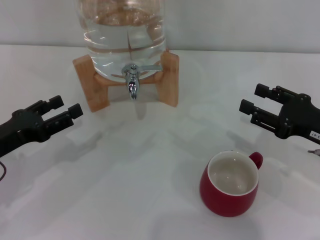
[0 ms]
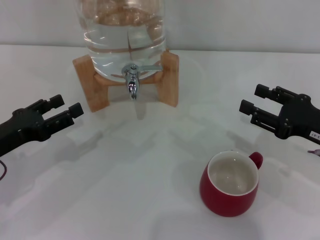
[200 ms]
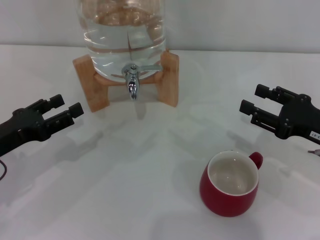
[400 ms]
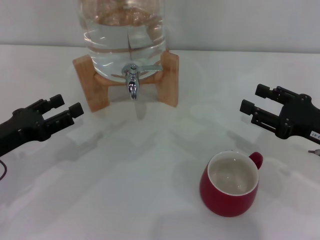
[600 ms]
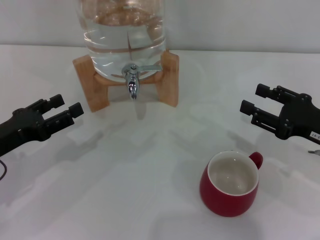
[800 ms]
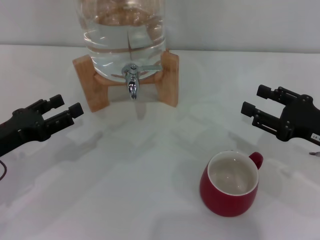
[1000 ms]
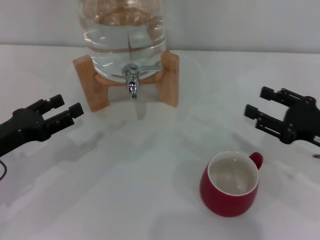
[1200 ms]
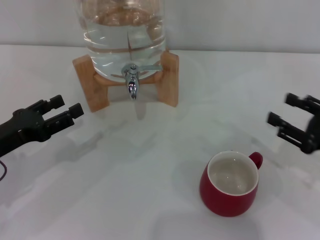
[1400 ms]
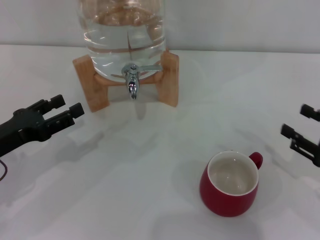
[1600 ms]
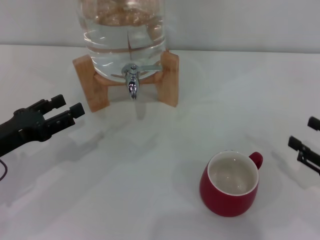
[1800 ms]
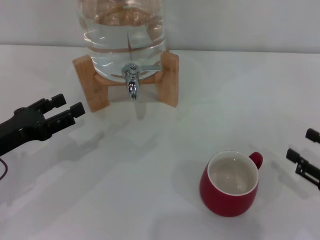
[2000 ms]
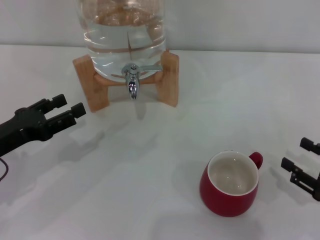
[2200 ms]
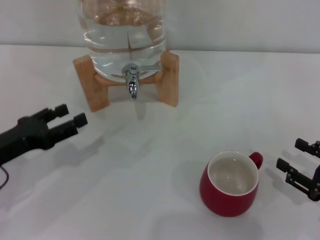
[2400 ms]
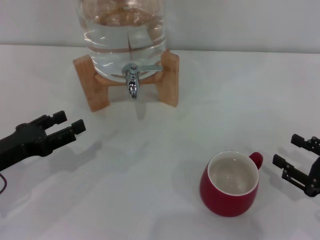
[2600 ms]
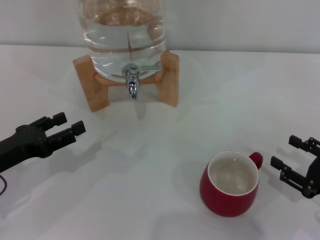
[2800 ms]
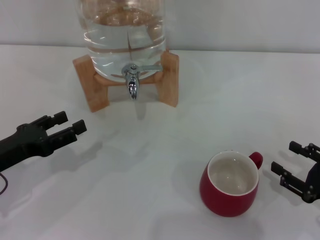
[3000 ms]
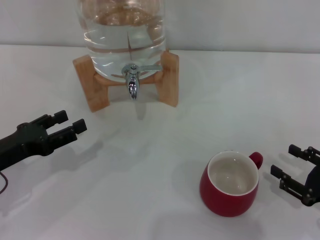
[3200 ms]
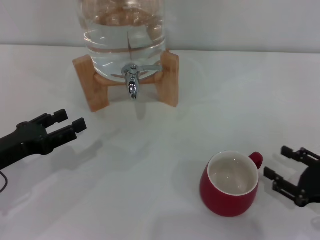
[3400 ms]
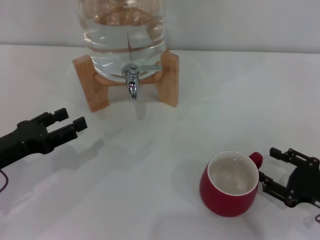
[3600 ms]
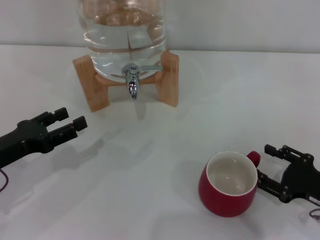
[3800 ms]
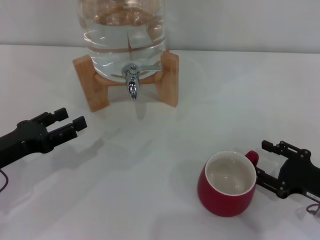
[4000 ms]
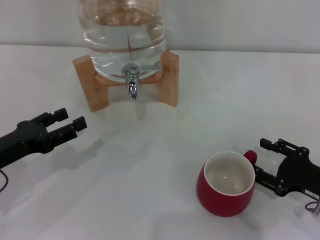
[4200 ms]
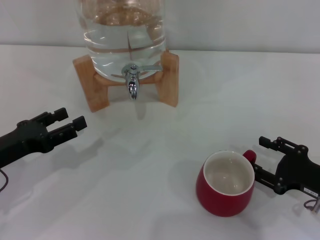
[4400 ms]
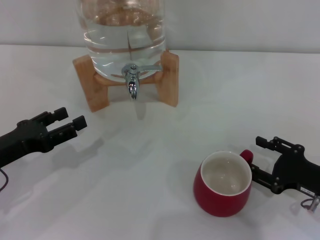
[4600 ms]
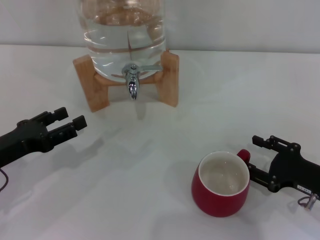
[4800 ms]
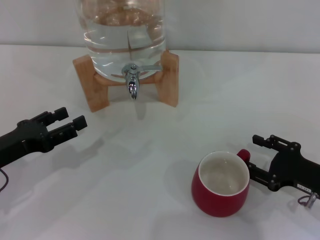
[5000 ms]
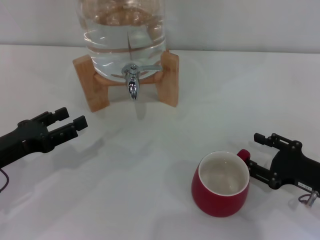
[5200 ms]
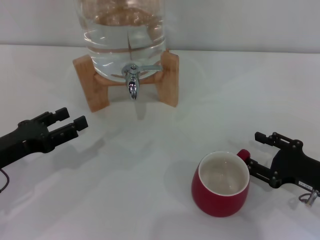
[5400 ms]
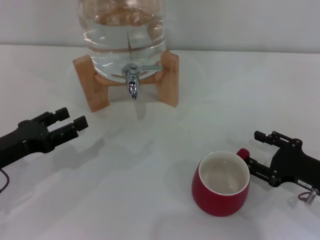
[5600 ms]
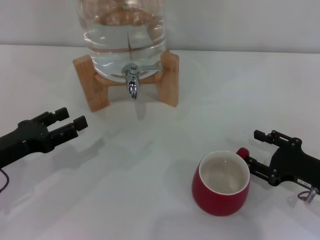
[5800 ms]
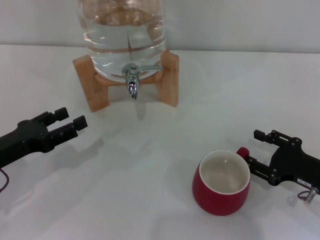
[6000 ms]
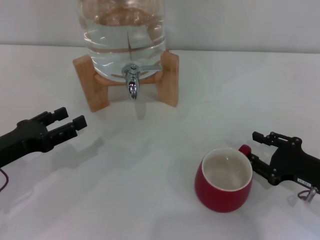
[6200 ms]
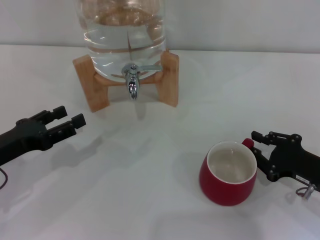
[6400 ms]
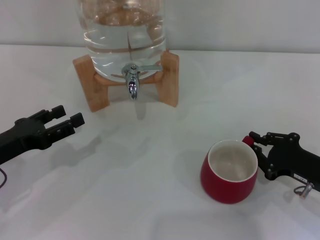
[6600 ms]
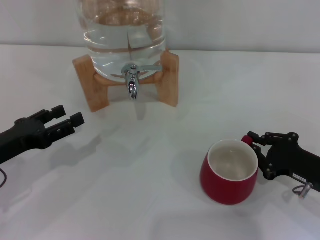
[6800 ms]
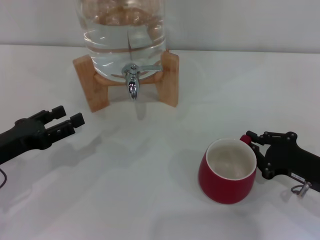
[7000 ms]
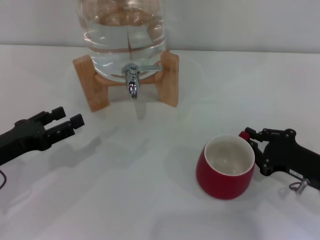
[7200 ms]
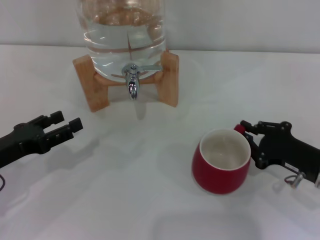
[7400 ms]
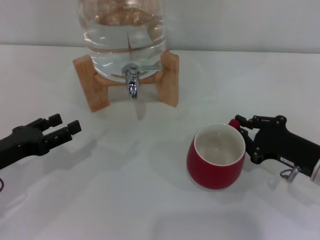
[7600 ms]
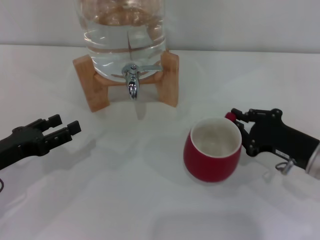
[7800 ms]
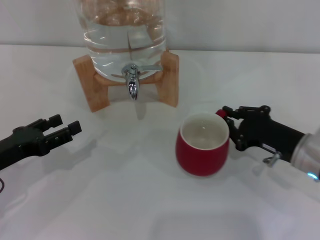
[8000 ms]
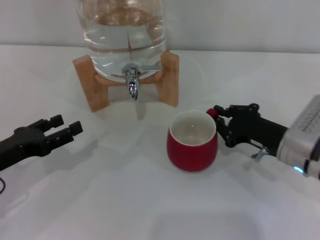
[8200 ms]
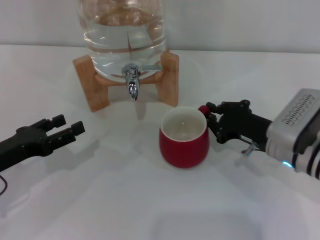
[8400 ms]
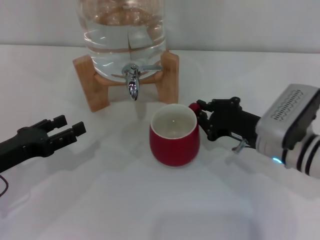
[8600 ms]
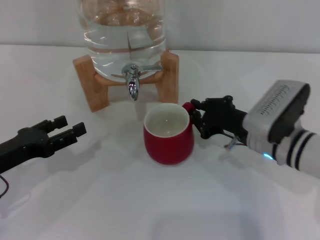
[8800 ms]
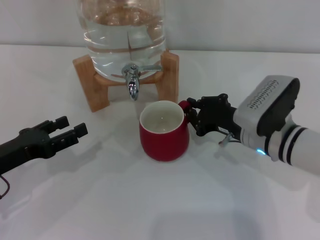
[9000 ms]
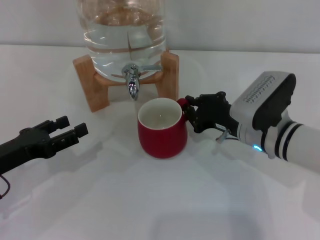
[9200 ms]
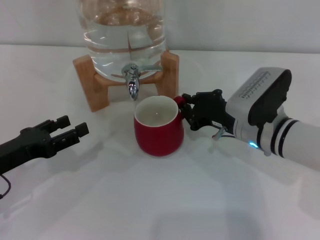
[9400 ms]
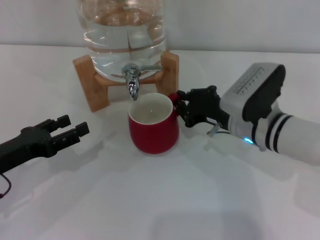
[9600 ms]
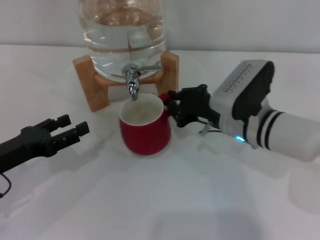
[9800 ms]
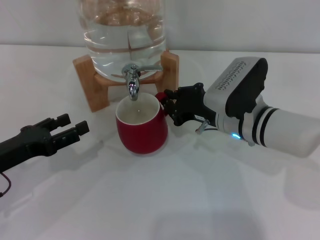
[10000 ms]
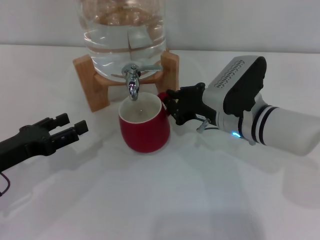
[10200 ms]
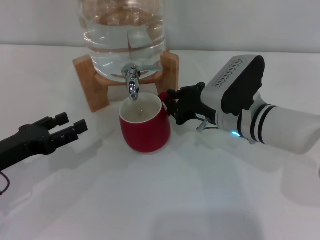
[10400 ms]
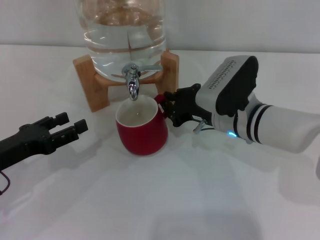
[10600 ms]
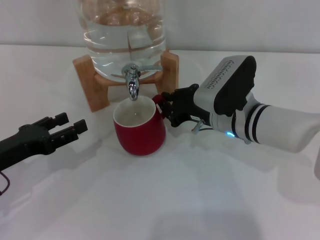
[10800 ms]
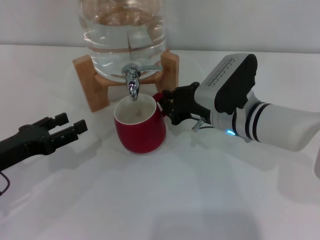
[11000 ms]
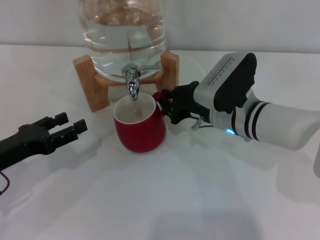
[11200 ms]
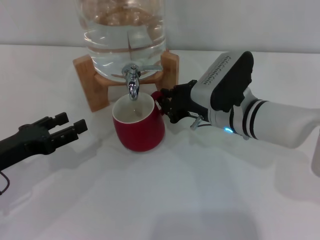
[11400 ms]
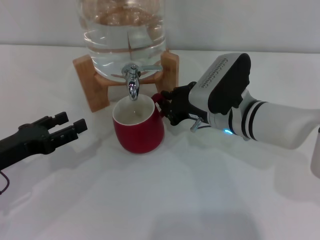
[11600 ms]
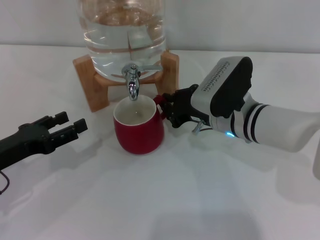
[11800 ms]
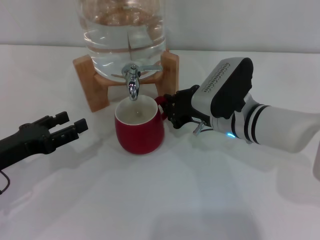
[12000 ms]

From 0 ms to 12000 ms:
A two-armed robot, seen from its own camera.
Task of the whole recording: the right gripper pick up the red cup and place it horizontally under the faucet, the left gripper turn on the faucet to fill the cup, and then turn off the faucet.
From 0 ms to 1600 ms: The right gripper changes place by some 5 cm.
From 1600 ms to 3000 ms: The right gripper moves about 5 cm.
From 3000 ms to 6000 ms: The grippers move only a little.
From 6000 ms to 7600 ms: The right gripper closes its fingers.
From 7600 ms to 9000 ms: The right gripper shifts roughly 10 cm to the left and forward.
From 9000 ms to 10400 ms: The right gripper shifts by about 5 cm.
From 10400 ms to 12000 ms: Both grippers stay about where they are.

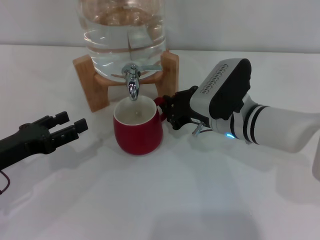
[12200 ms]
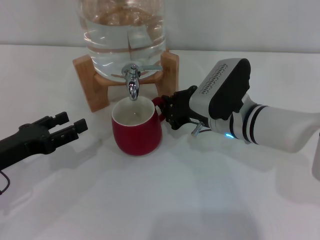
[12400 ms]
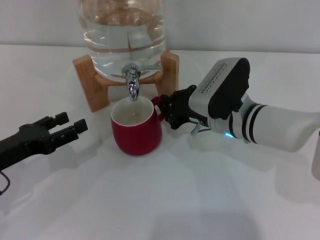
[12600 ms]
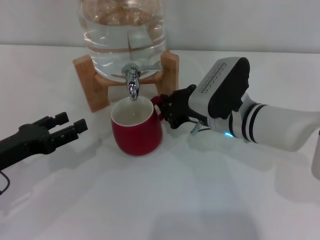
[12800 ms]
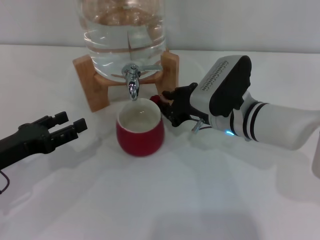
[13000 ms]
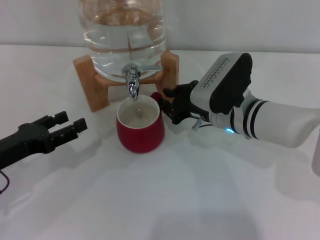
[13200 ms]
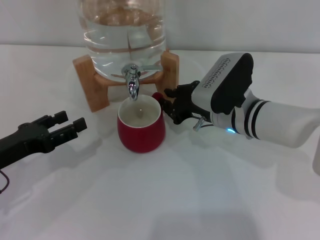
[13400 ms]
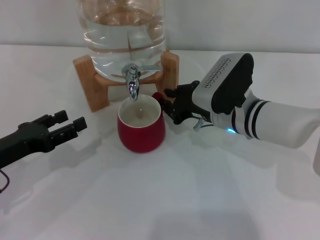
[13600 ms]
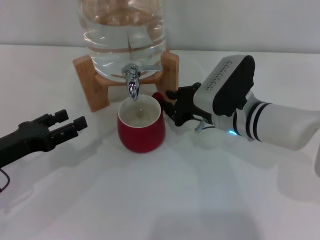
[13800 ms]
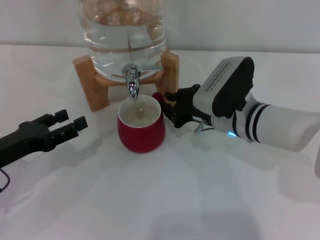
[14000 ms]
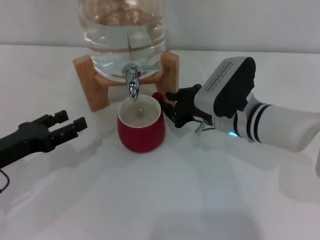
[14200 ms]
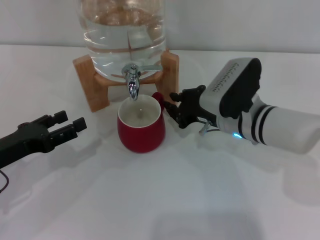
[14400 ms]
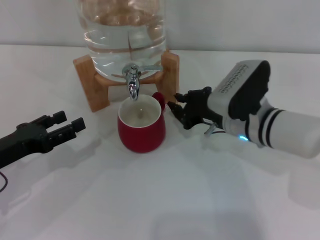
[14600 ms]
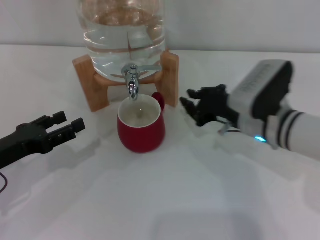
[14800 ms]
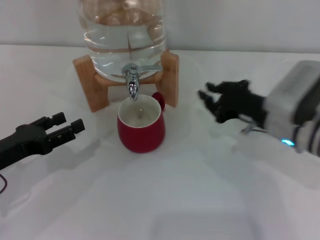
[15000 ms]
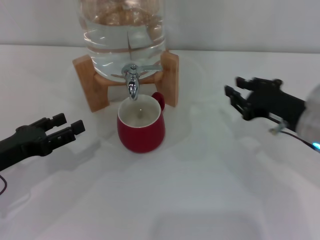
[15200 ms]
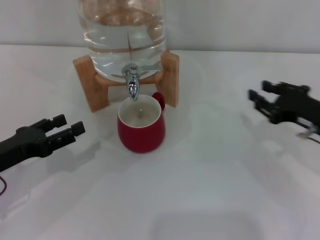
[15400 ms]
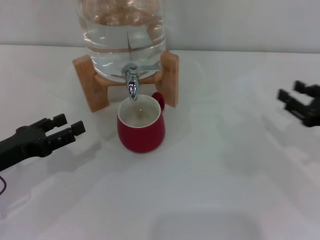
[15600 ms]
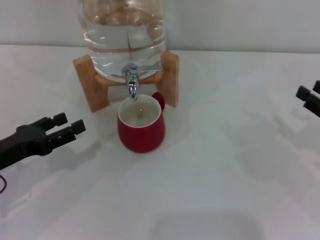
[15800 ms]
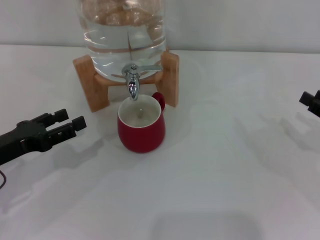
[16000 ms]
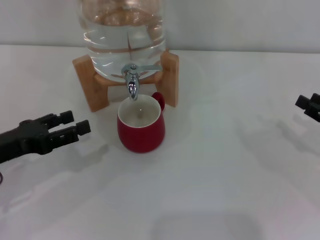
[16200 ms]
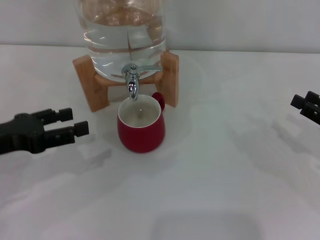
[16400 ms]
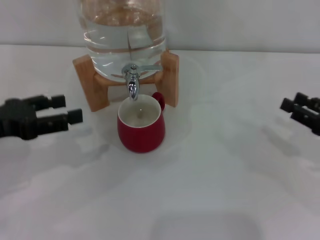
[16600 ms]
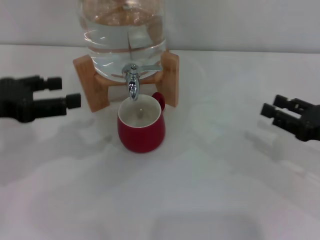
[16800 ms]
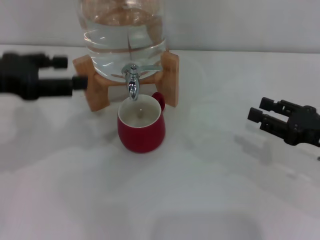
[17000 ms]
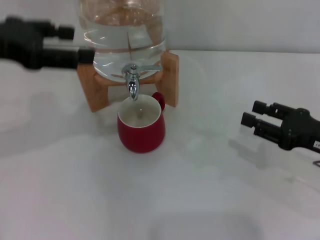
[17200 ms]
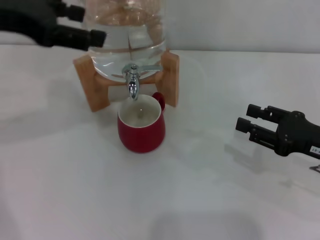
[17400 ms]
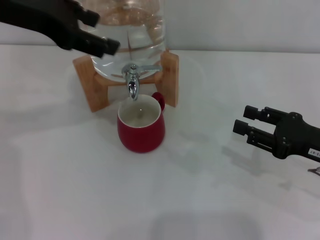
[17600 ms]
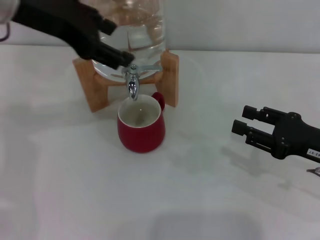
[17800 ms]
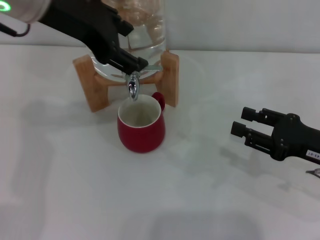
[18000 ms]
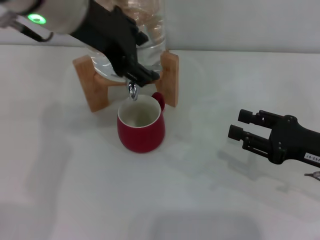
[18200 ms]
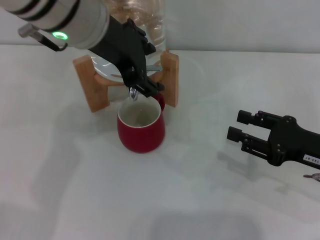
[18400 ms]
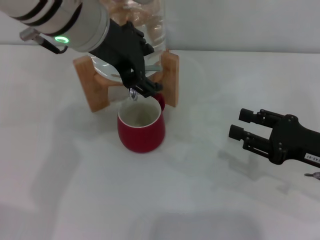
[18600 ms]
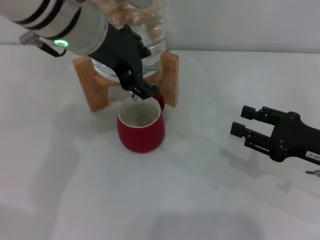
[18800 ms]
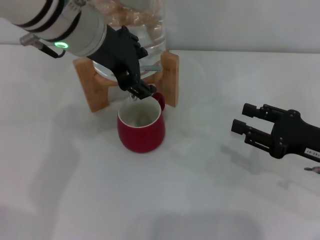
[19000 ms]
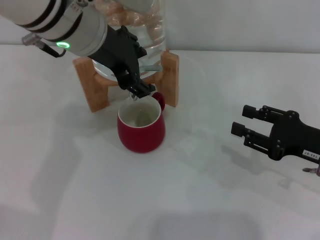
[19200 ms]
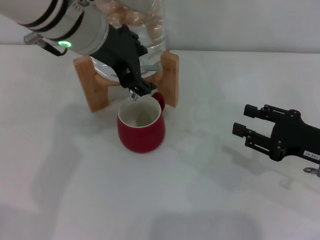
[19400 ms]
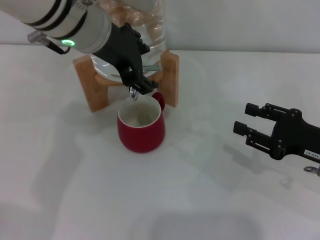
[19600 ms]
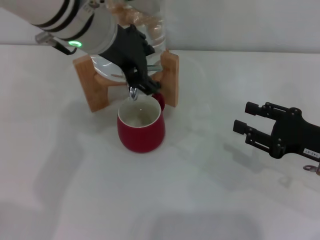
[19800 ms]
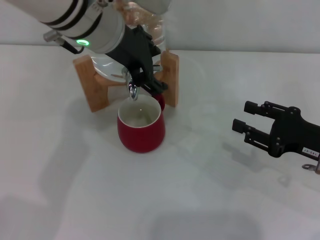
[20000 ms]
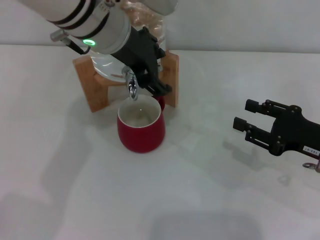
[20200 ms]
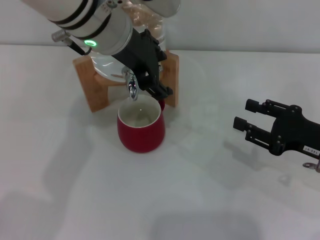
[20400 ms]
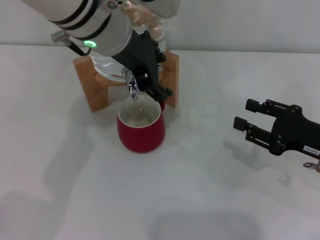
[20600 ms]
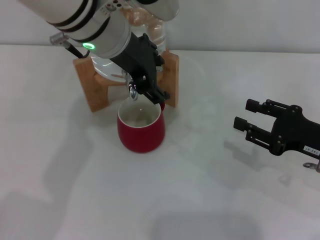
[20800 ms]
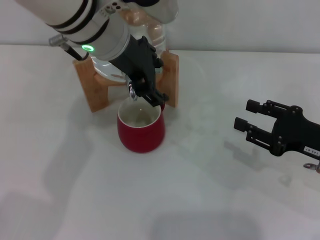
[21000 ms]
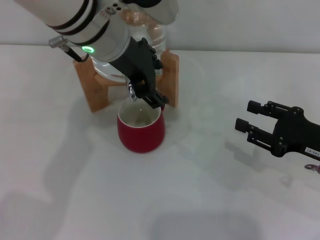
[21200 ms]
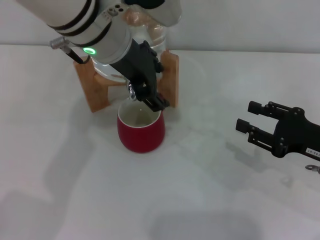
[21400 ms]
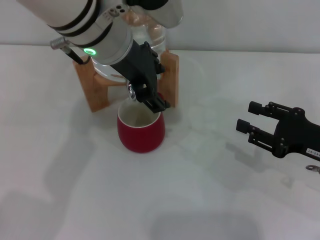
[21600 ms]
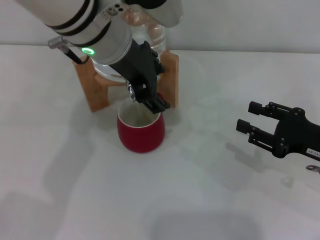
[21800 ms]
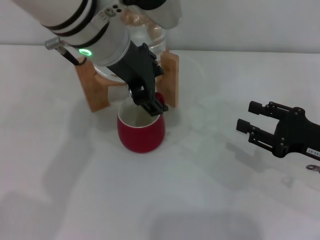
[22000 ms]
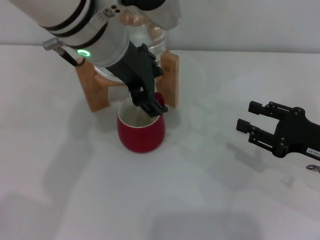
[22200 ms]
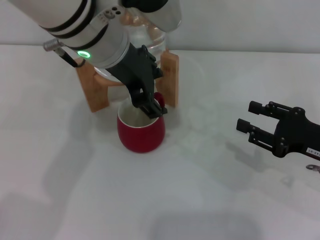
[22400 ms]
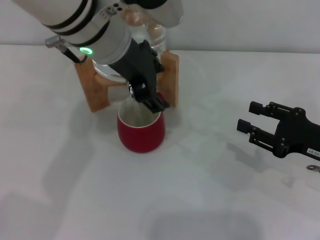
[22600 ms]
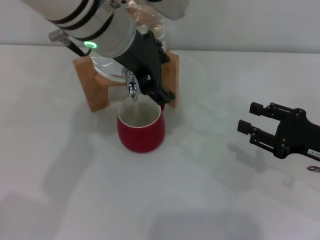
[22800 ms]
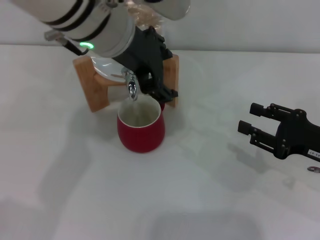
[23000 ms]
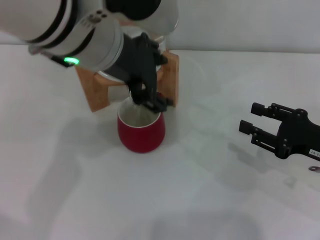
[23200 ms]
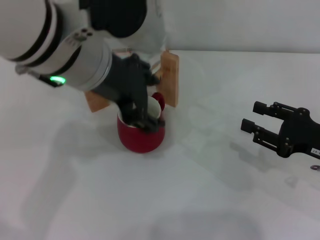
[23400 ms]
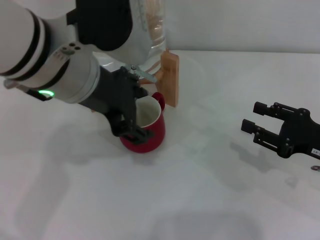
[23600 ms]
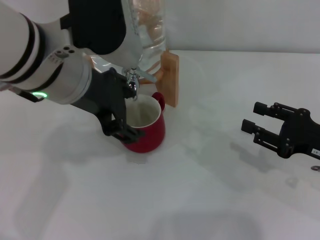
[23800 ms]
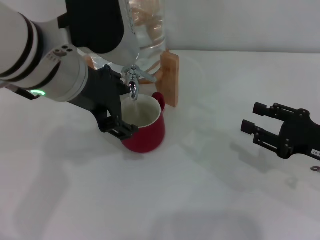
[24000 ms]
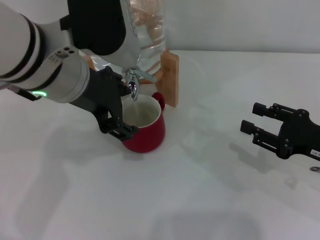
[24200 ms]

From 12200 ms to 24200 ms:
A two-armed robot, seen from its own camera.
Task of the whole recording: the right gripper pick up the red cup and place it horizontally under the faucet, the left gripper turn on the faucet to fill the cup, and then turn off the faucet.
Step, from 12200 ms to 14600 ms: Move the cup beneath the water dispenser nozzle with the right gripper.
Step, from 14800 ms to 23800 ms: Open the dispenser valve and fill the cup with water with the left gripper.
From 12200 ms to 13800 ms: Both grippers stay put.
From 13800 ms to 15200 ms: The right gripper travels to the right by some 10 cm.
From 15200 ms to 16600 ms: The right gripper is displaced to the right by about 10 cm, and opens; the left gripper heads upward, covering about 10 cm.
From 16600 ms to 18200 ms: The right gripper travels to the left by roughly 5 cm. The left gripper heads to the right, upward and forward, covering about 25 cm.
From 18200 ms to 19800 ms: The left gripper shifts by approximately 5 cm.
From 19800 ms to 22600 ms: There are only small adjustments of the grippers.
From 22600 ms to 24200 ms: The left gripper moves backward, about 5 cm.
